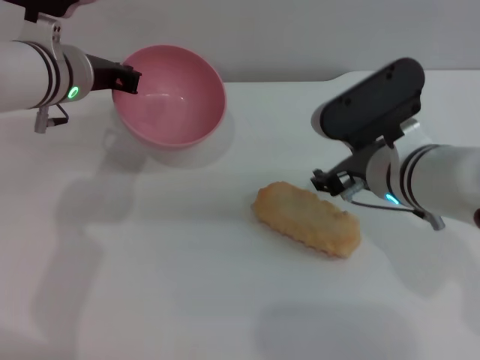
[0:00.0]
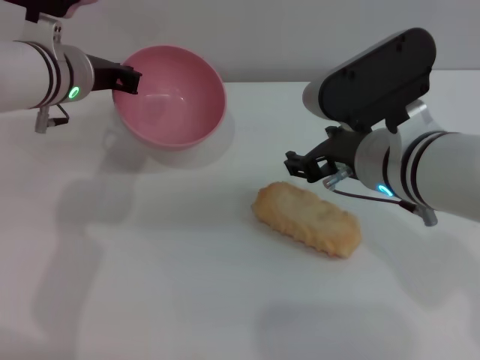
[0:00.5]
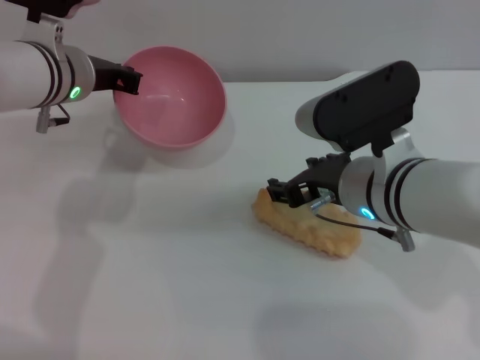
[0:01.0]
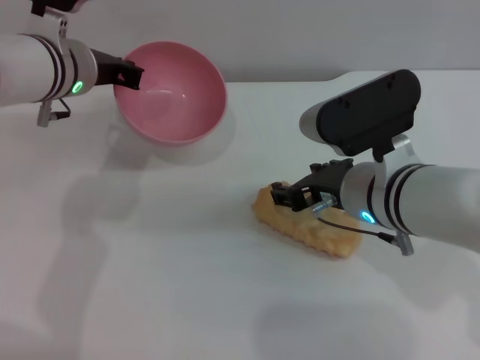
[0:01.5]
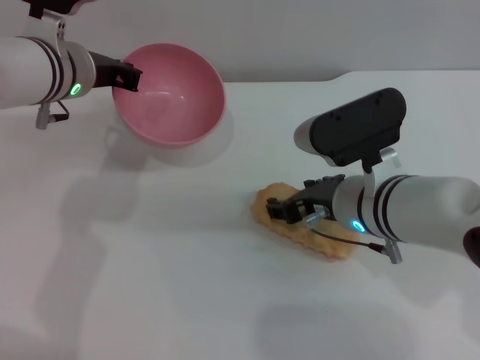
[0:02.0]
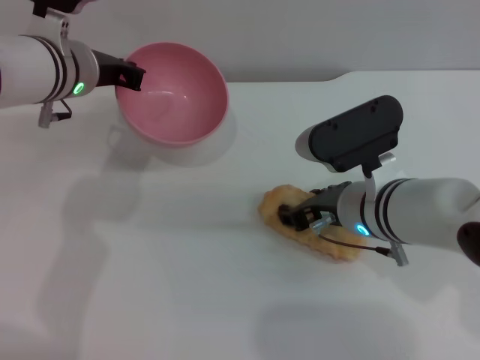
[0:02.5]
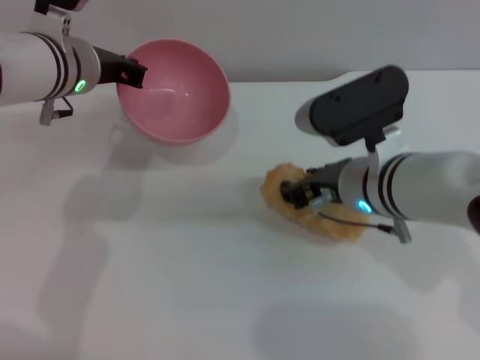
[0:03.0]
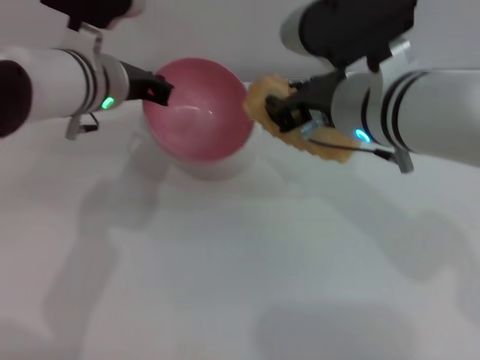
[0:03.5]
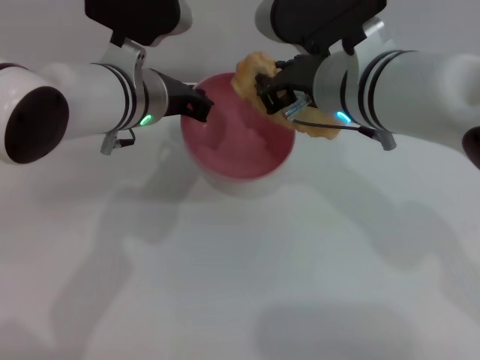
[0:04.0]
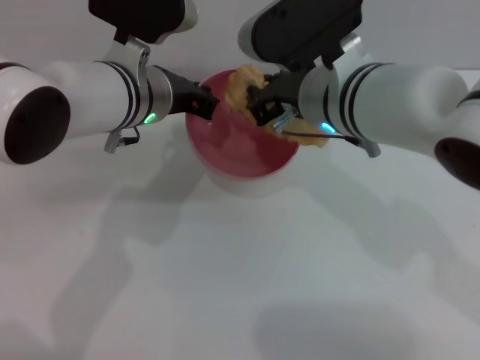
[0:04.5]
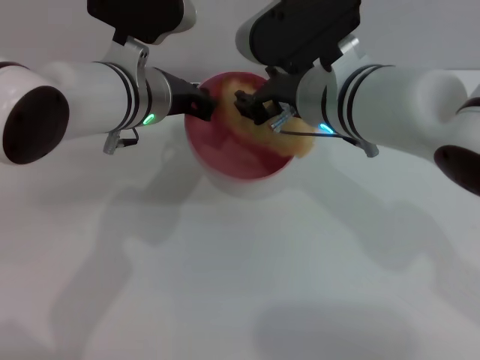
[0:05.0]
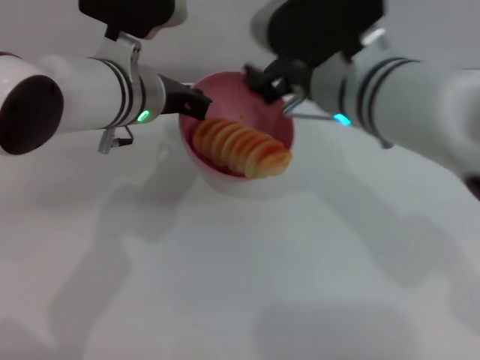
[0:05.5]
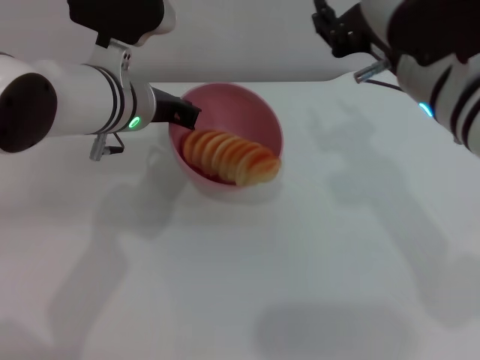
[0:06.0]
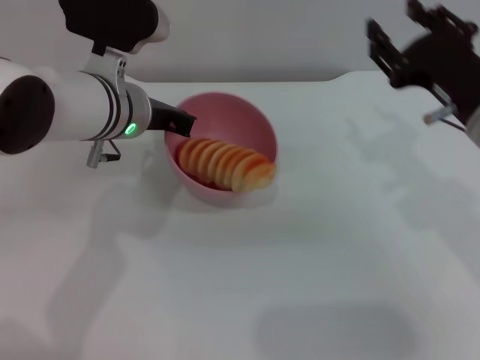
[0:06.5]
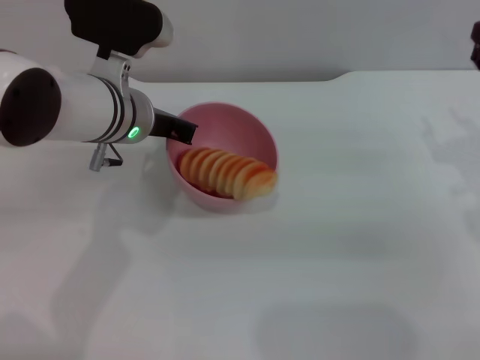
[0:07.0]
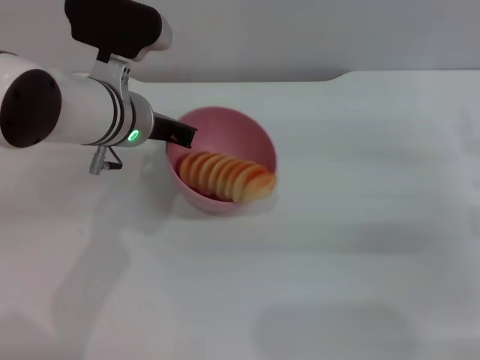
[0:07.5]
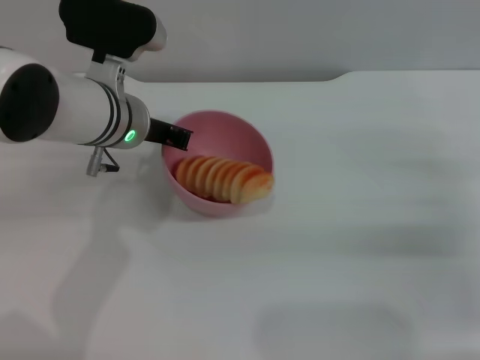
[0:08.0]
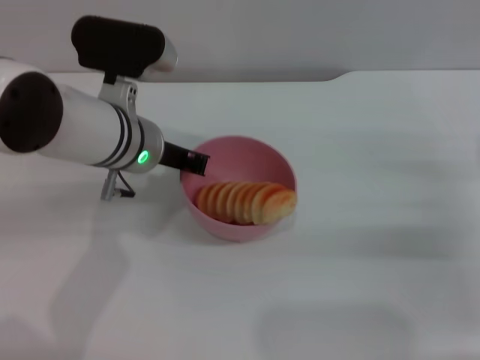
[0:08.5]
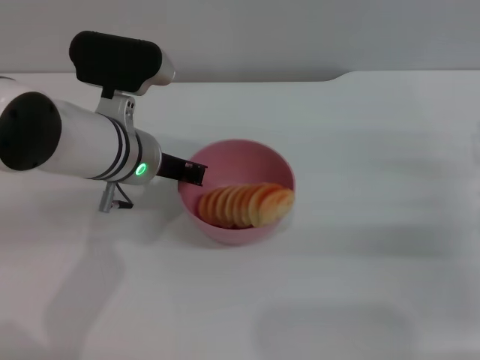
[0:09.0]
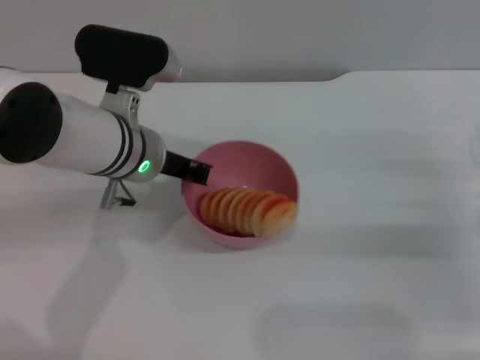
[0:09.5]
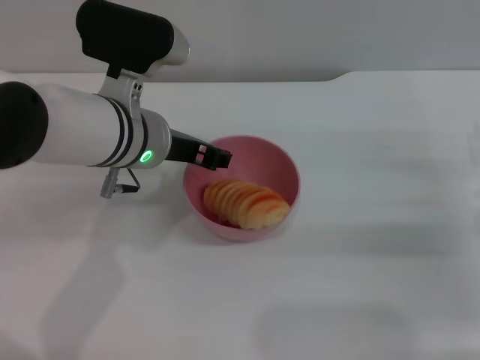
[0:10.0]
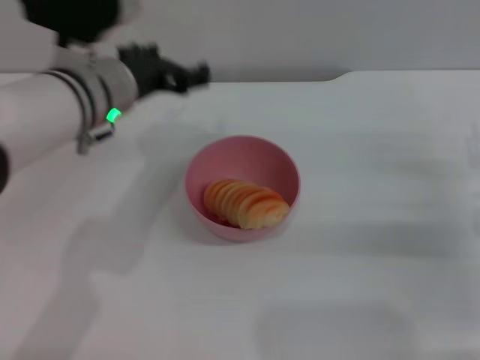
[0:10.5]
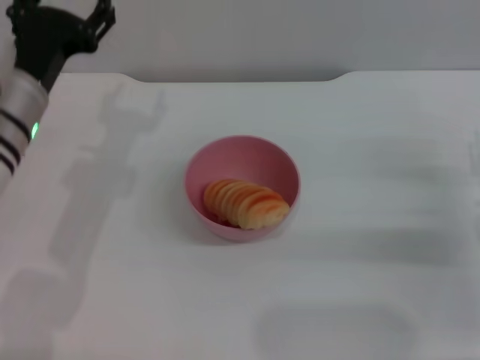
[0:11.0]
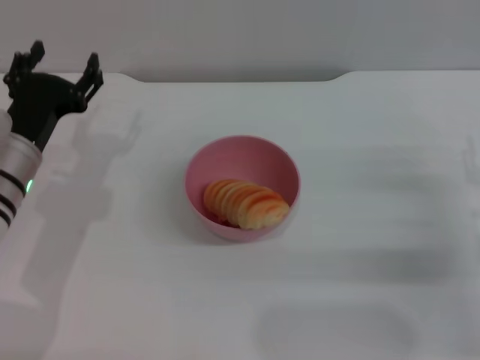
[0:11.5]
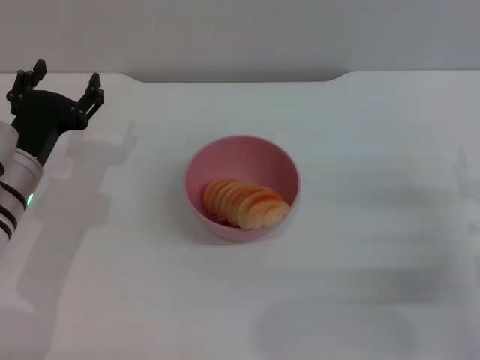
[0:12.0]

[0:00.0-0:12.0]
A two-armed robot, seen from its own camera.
Task of the whole recording: put the bread into the pink bowl and pour it out repeatedly.
Step, 0:00.0 to 0:03.0: Pick up the bread with the right gripper.
Step, 0:03.5 to 0:05.0: Place the bread into the bowl.
Step, 0:05.5 to 0:10.0: Place the bowl on the table.
0:00.0 to 0:02.0: The grippers make only small movements.
0:02.0 to 0:04.0: The left gripper travels to the right by some 5 cm; the right gripper moves upward, about 10 cm, and closes up.
0:04.0 to 0:06.0: The right gripper moves to the right, about 5 cm, and opens.
0:06.0 to 0:08.0: The right gripper heads to the right and downward, covering roughly 25 cm.
0:08.0 to 0:10.0: The left gripper opens its fingers.
0:10.0 to 0:12.0: The left gripper heads to the left and downward, covering some 15 cm, and opens its fingers. The right gripper changes place by approximately 5 cm.
